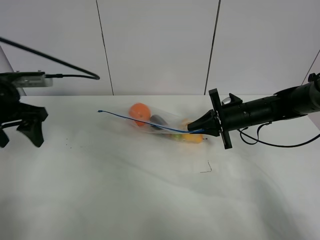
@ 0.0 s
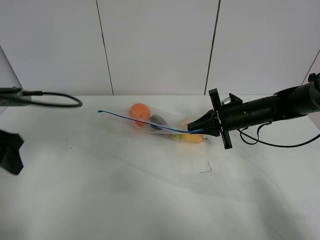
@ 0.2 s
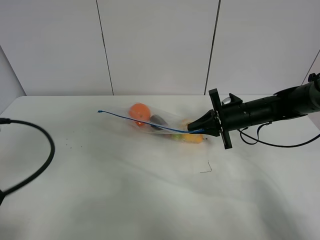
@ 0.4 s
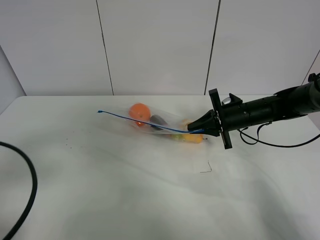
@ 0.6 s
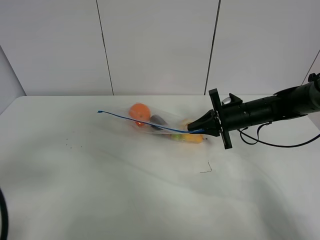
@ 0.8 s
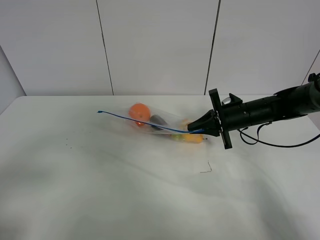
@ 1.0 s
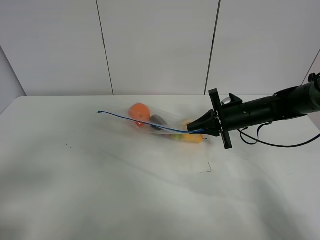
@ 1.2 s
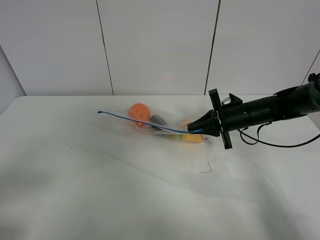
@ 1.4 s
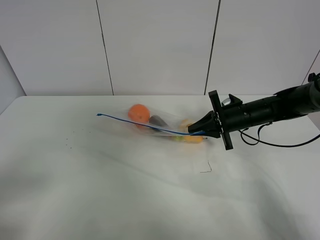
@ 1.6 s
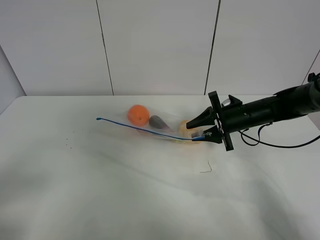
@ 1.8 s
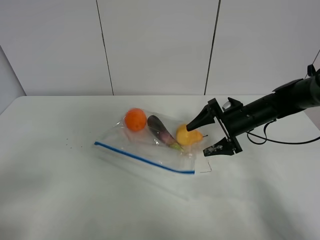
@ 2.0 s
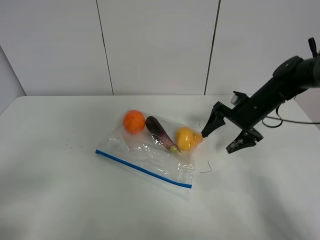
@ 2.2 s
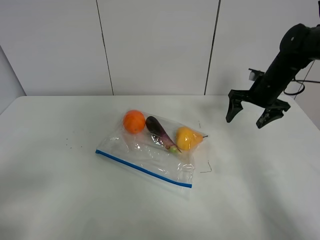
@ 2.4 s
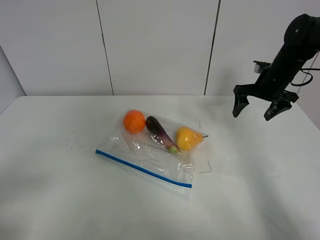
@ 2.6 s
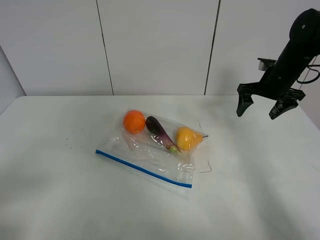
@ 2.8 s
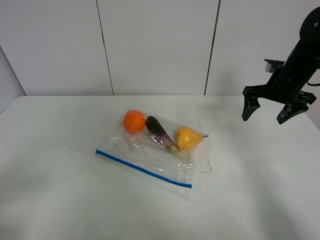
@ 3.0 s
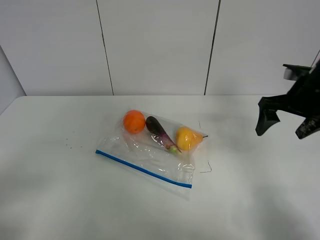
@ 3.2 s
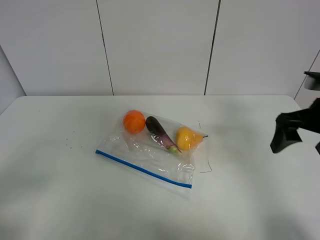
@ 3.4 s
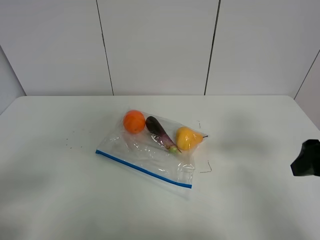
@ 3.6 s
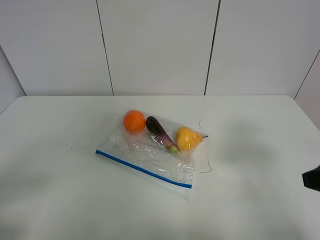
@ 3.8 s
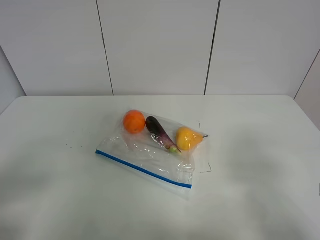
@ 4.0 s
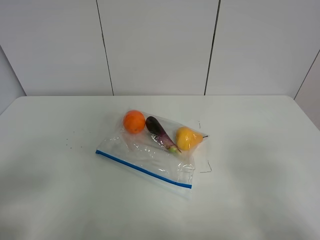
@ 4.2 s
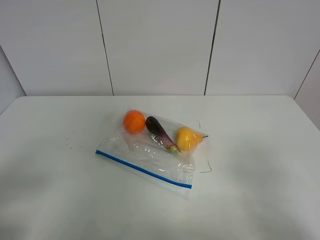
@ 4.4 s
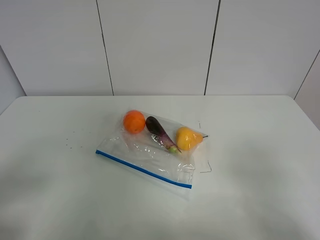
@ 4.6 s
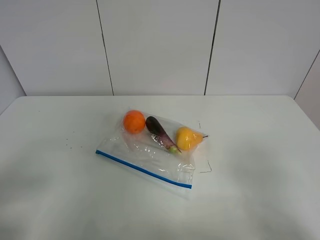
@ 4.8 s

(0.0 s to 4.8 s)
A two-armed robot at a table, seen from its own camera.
0.0 s - 1.6 s: The left gripper heads backward, covering about 25 cm.
1.6 s - 3.2 s: The right gripper heads upward, to the right and backward, covering approximately 15 cm, and opens its fingers.
3.2 s - 4.8 s: The right gripper moves backward, roughly 30 cm.

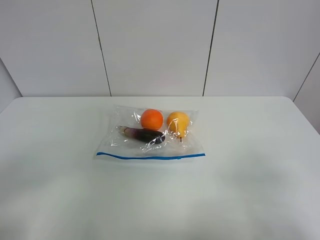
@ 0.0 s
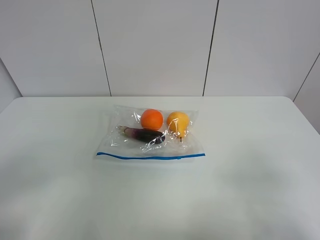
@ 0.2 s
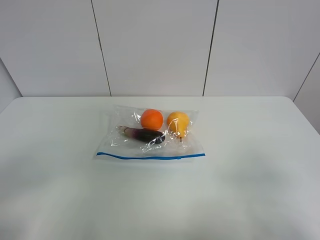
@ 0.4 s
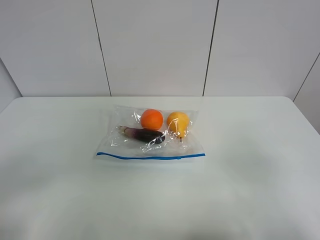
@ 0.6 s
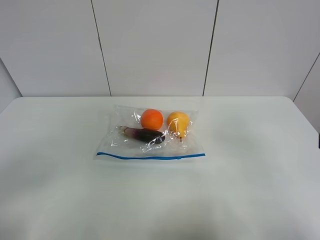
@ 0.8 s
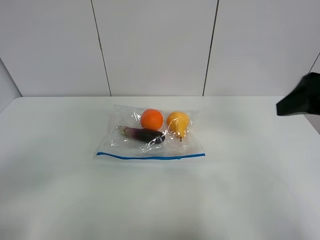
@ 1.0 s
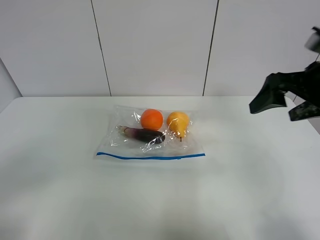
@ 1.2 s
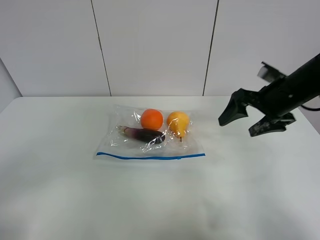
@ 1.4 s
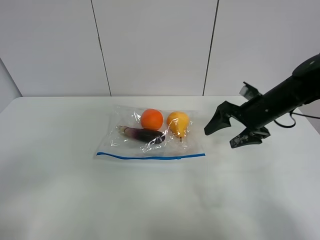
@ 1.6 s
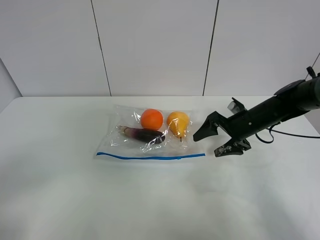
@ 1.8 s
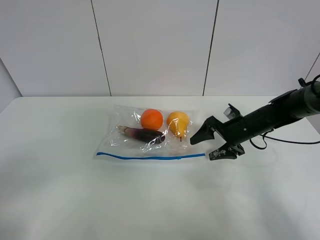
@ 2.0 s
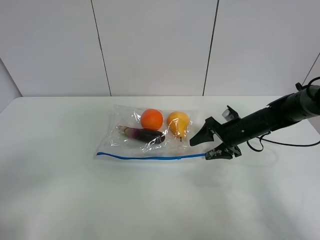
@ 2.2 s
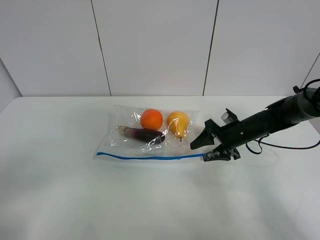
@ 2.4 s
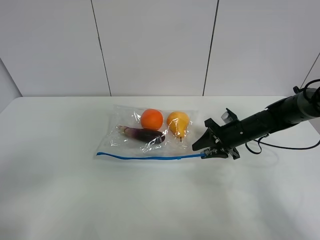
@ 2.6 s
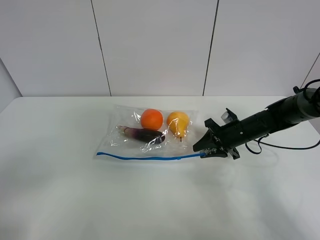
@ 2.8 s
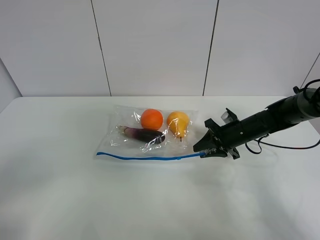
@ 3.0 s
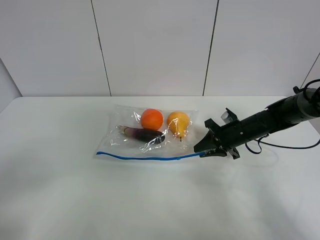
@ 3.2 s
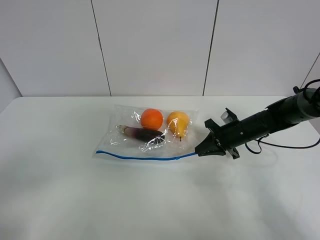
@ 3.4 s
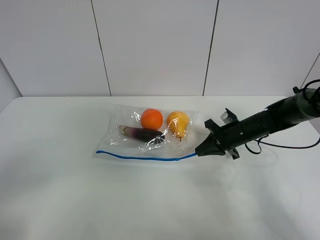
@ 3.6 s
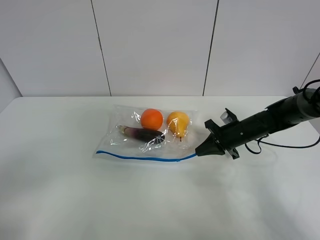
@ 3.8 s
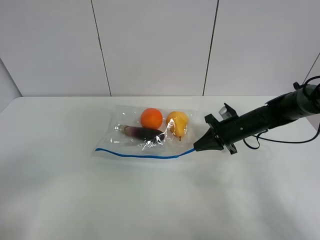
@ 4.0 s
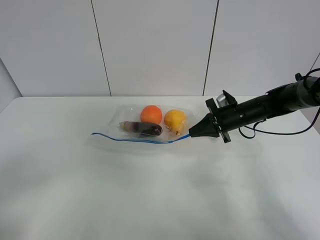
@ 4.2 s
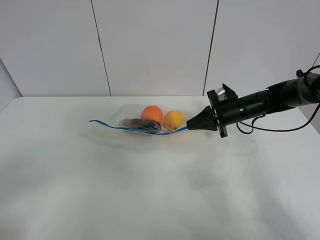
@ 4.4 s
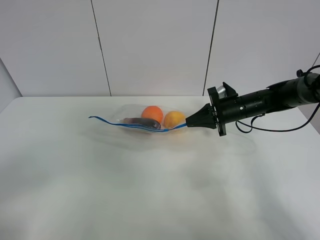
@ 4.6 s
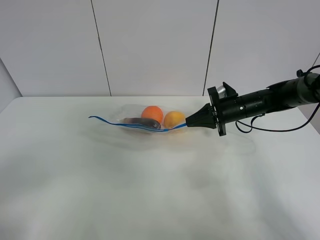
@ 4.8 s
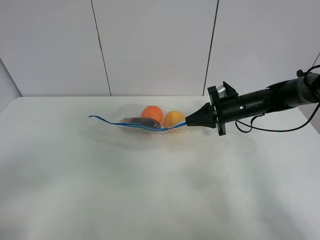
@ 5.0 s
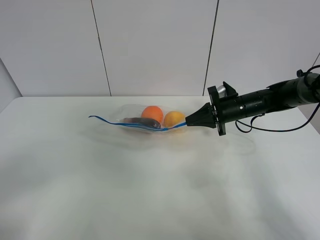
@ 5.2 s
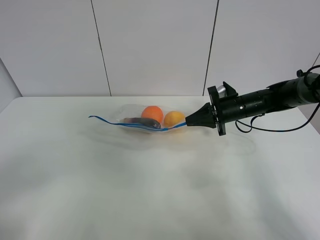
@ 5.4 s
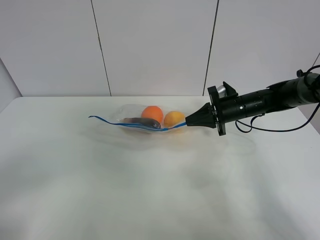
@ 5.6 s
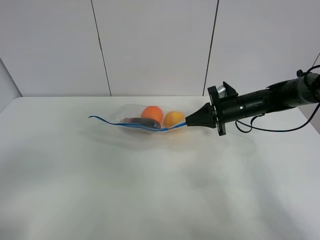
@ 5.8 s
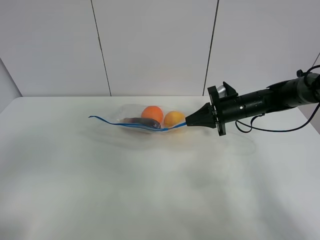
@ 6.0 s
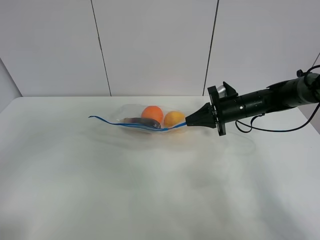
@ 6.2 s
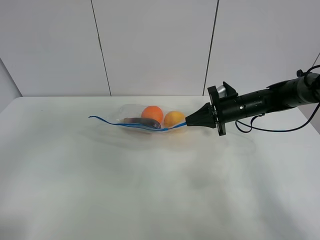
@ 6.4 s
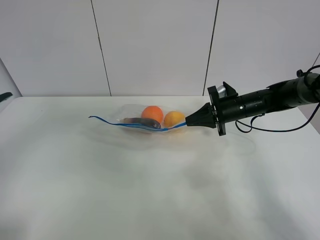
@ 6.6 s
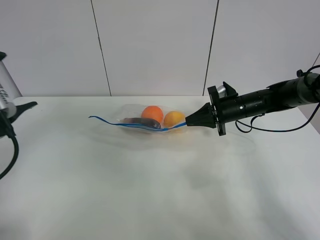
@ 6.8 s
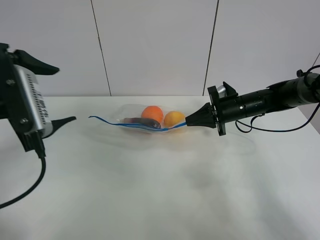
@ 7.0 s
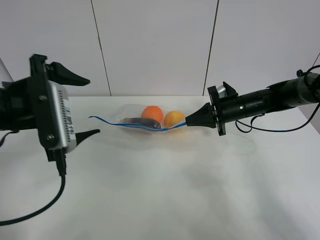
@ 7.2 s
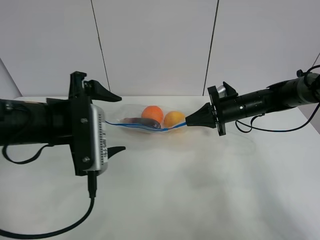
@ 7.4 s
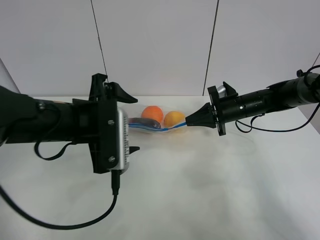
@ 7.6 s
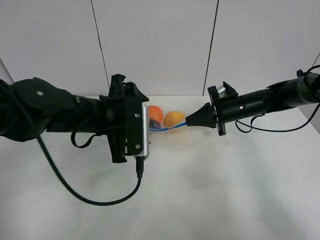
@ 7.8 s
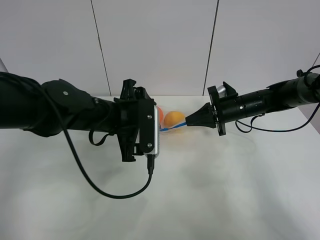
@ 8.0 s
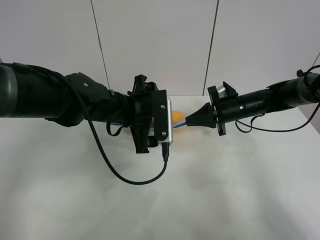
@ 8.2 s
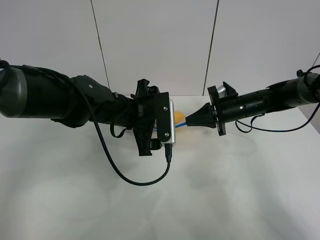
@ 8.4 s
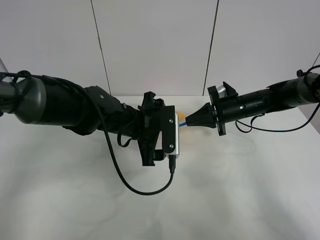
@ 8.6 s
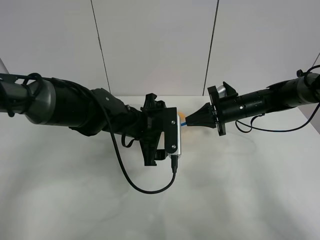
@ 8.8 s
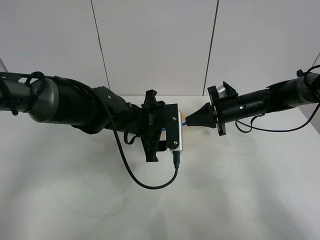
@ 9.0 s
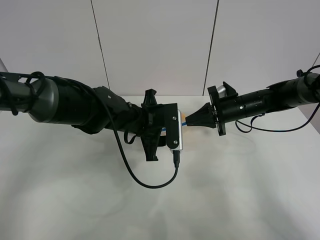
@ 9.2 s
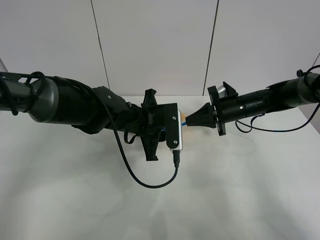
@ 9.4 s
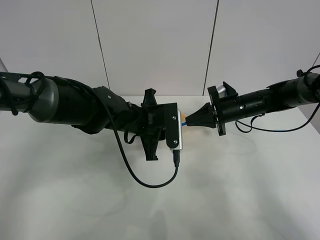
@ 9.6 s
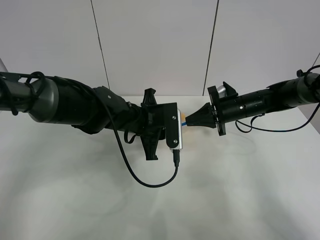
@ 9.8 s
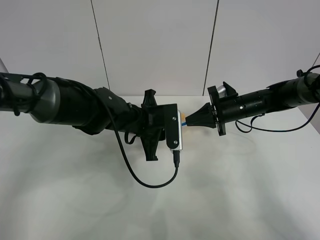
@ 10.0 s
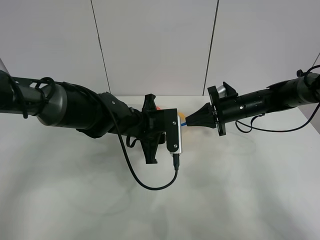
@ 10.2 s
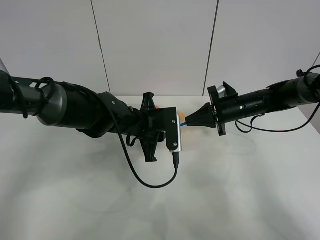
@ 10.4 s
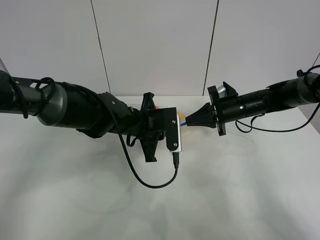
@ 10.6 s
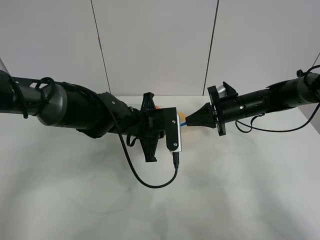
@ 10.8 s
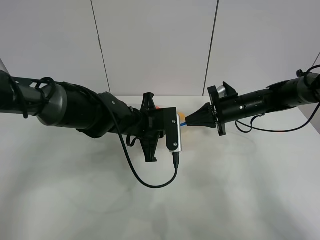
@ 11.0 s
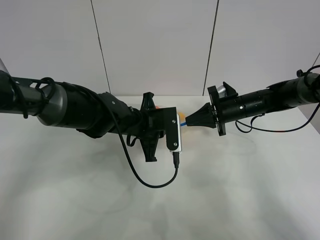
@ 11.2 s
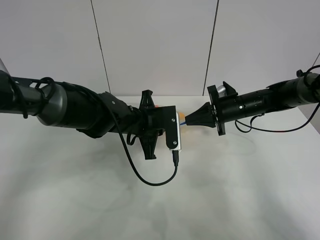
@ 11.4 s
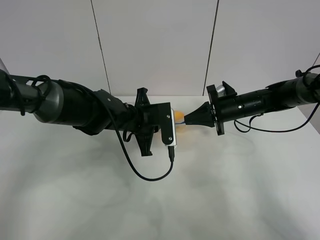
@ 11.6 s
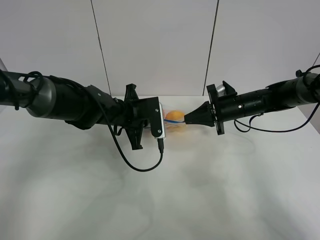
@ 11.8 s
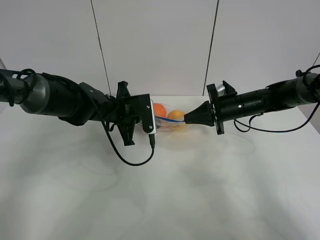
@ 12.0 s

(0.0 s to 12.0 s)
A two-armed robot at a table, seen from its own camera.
Step, 0.0 s - 3.6 s: Grasp the fruit bag with right gripper.
Step, 3.8 s - 4.8 s: Lift the fruit bag with your right gripper.
0.0 s - 1.6 s: The right gripper heads forward, covering some 35 cm.
1.6 s - 3.0 s: The right gripper moves downward, some 10 cm, and closes up.
3.0 s - 4.4 s: The right gripper shifts some 5 cm upward, and closes its fingers.
4.4 s - 6.0 s: The left gripper moves approximately 5 cm.
6.0 s - 7.6 s: The left gripper travels forward, to the right and downward by about 30 cm.
7.6 s - 9.0 s: The left gripper moves forward, downward and to the right, roughly 15 cm.
9.0 s - 10.4 s: The left gripper closes up.
10.4 s - 12.0 s: The left gripper travels to the left by some 5 cm.

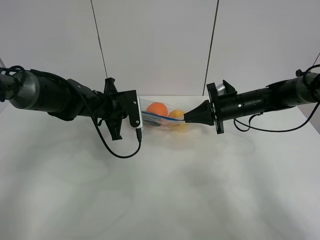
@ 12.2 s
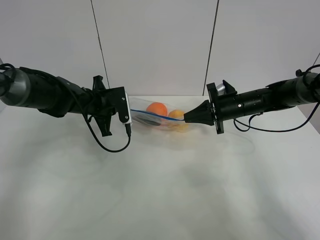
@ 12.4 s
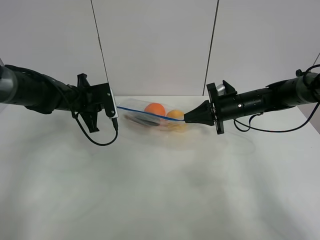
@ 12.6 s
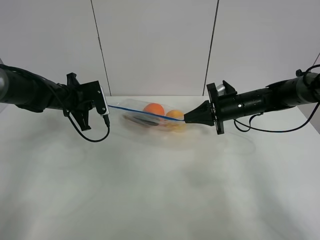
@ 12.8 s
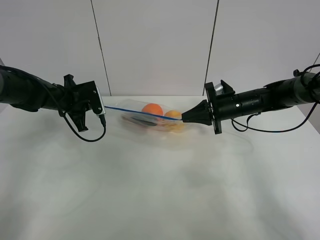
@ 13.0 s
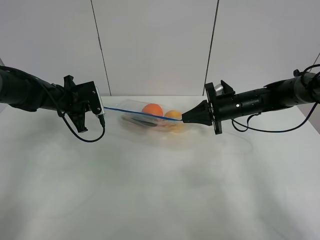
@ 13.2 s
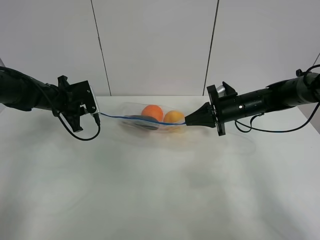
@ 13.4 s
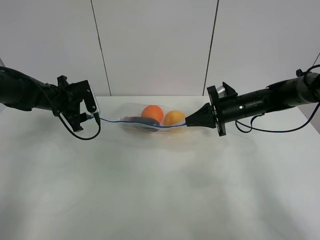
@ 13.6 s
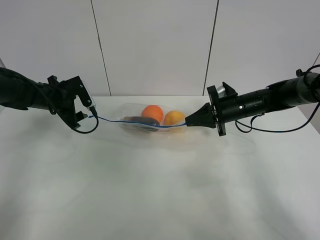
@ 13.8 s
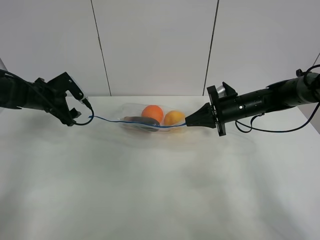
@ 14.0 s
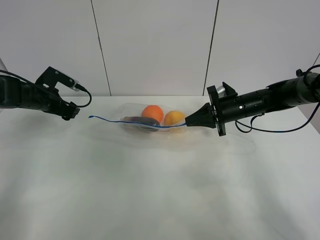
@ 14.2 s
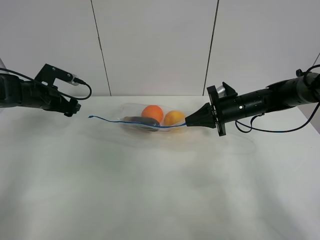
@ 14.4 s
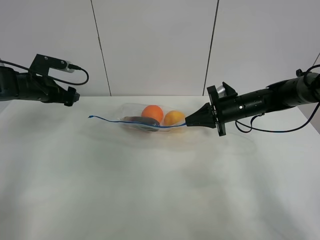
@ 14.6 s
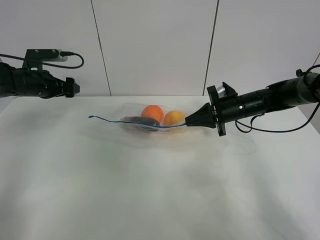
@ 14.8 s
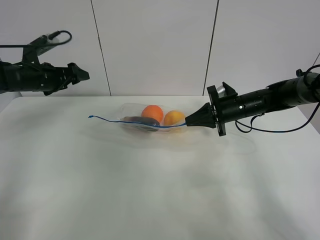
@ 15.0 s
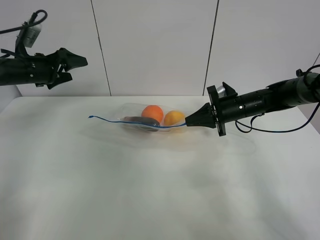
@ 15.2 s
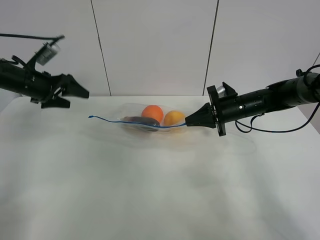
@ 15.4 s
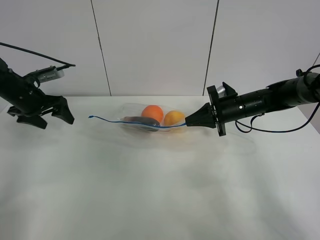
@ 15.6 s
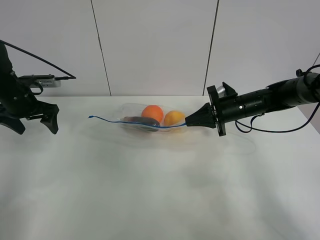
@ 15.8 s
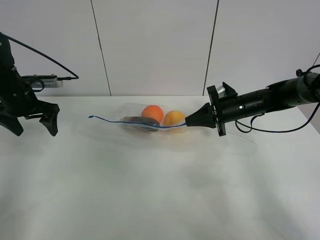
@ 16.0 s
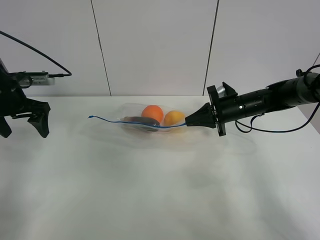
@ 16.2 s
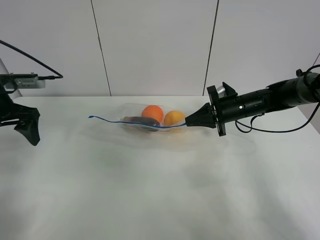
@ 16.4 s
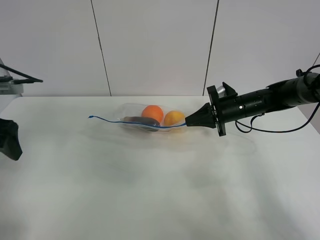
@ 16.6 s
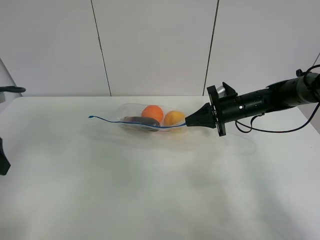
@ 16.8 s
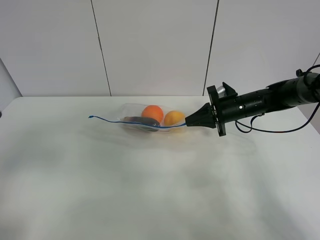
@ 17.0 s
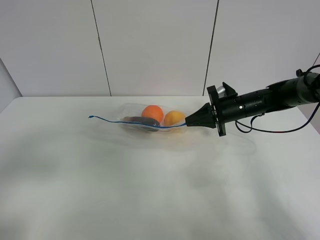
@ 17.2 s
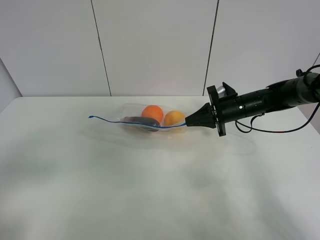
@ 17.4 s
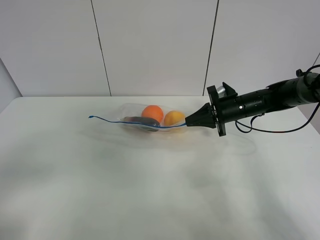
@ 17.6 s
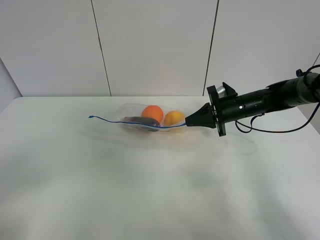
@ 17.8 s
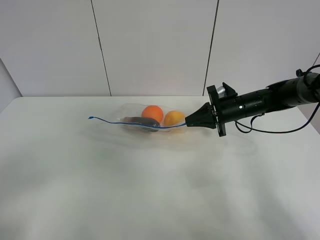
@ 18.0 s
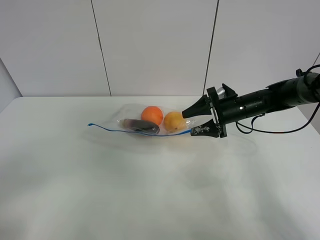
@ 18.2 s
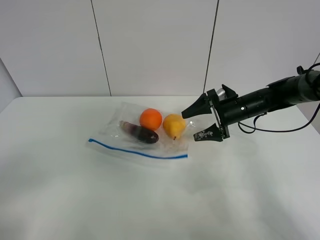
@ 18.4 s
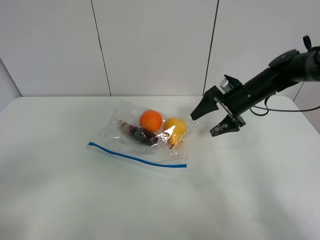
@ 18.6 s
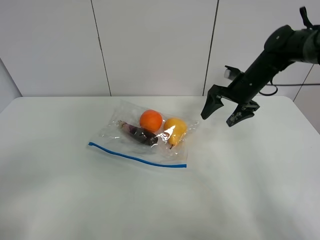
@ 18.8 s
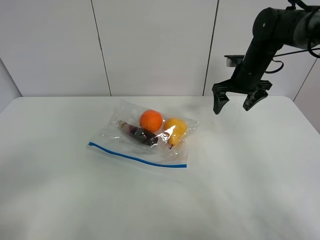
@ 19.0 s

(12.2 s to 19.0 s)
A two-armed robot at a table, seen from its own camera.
12.2 s - 13.6 s: The left gripper is displaced to the left by approximately 10 cm, and opens.
13.6 s - 15.0 s: The left gripper is displaced upward by some 5 cm.
15.0 s - 16.2 s: The left gripper heads backward, covering roughly 10 cm.
16.2 s - 17.6 s: The left gripper travels backward by some 30 cm.
17.6 s - 19.0 s: The right gripper is displaced upward by approximately 10 cm, and opens up.
